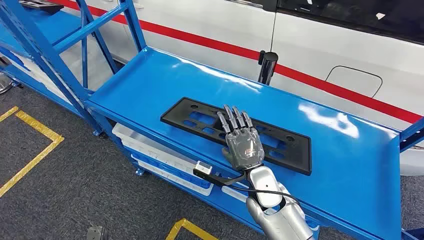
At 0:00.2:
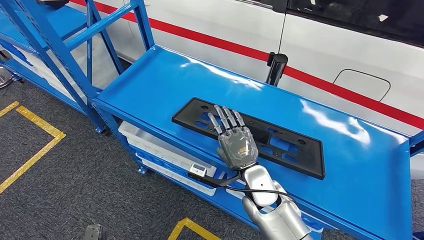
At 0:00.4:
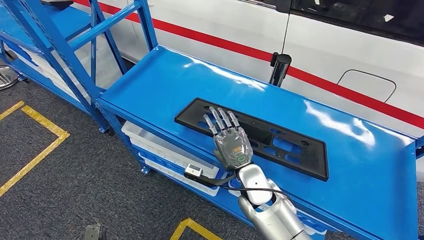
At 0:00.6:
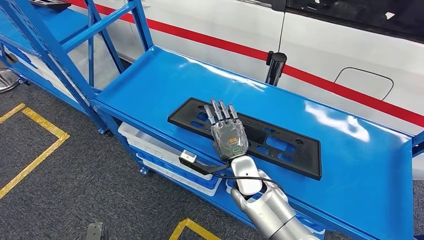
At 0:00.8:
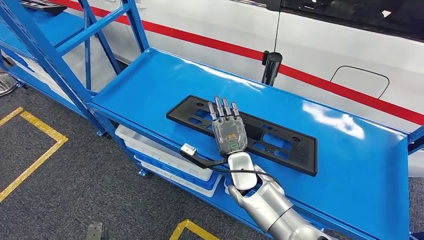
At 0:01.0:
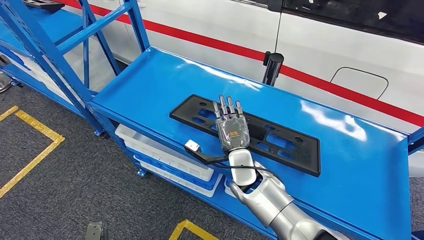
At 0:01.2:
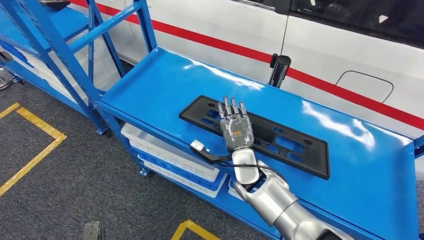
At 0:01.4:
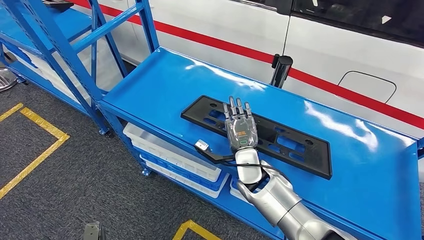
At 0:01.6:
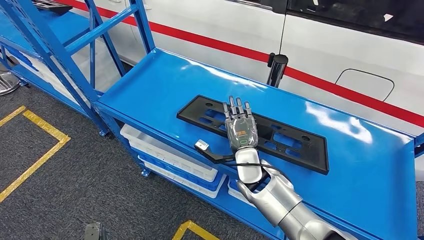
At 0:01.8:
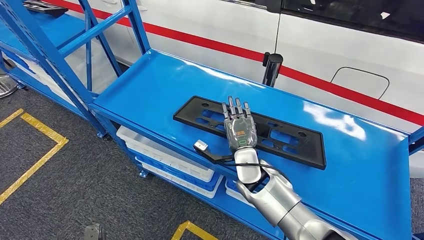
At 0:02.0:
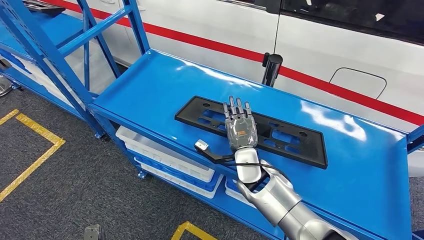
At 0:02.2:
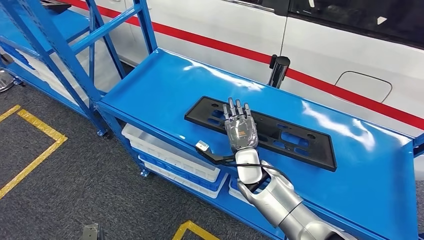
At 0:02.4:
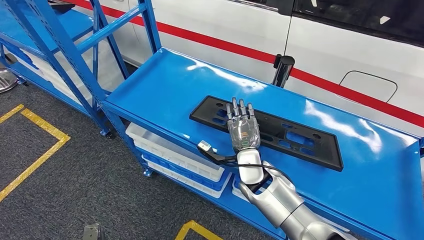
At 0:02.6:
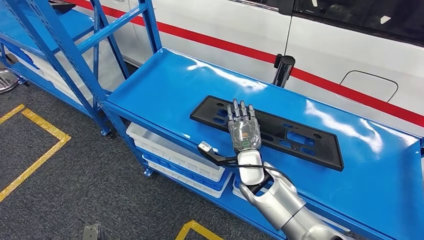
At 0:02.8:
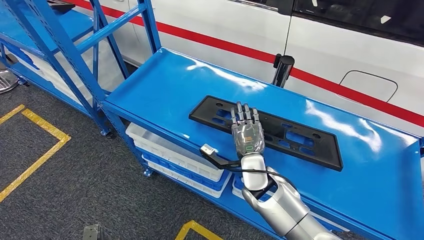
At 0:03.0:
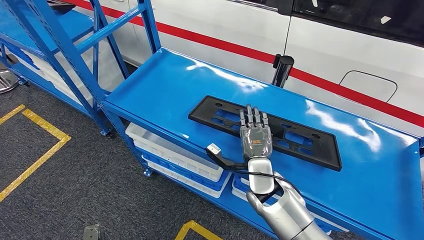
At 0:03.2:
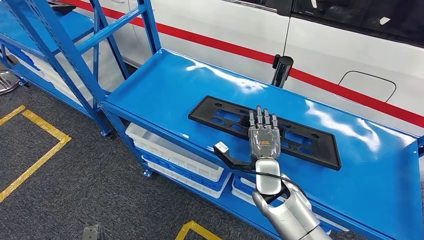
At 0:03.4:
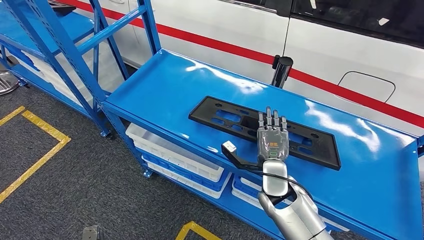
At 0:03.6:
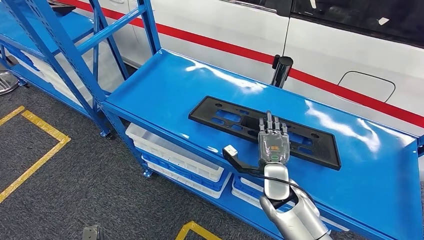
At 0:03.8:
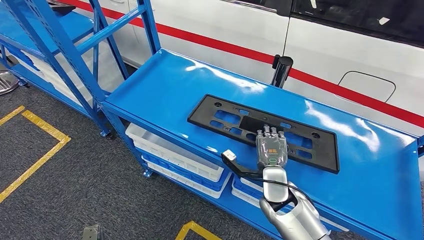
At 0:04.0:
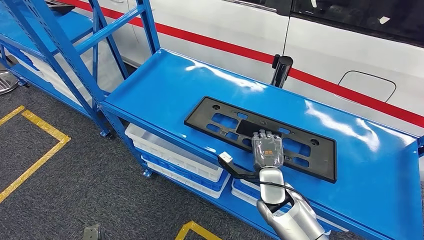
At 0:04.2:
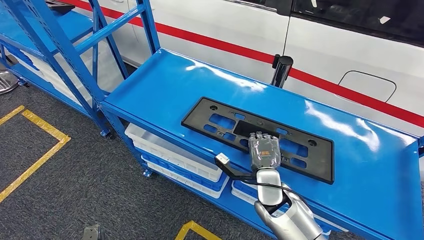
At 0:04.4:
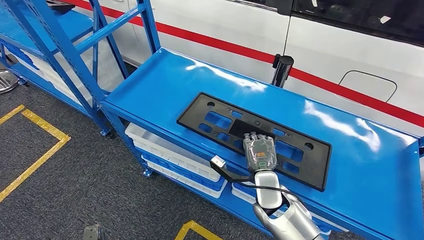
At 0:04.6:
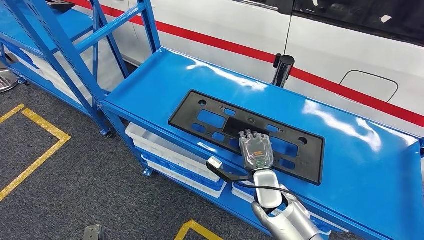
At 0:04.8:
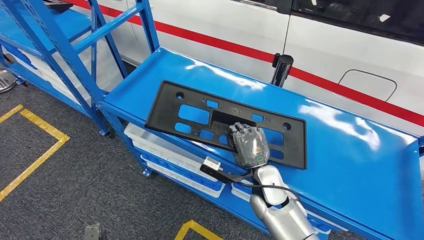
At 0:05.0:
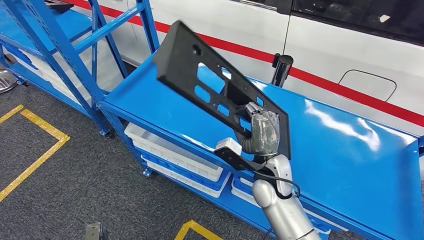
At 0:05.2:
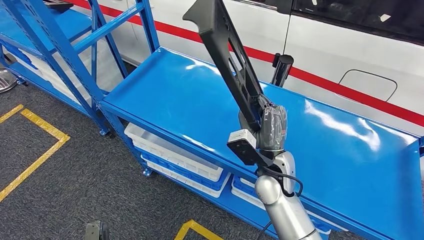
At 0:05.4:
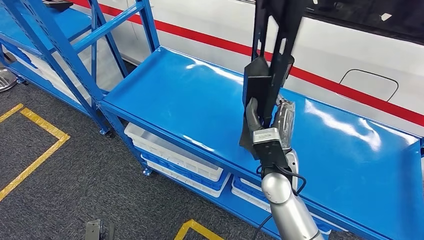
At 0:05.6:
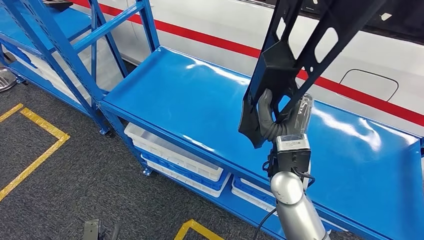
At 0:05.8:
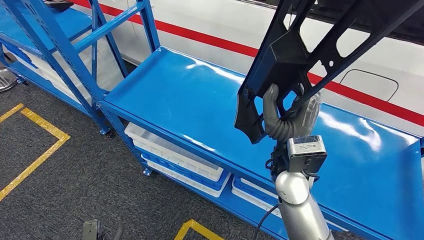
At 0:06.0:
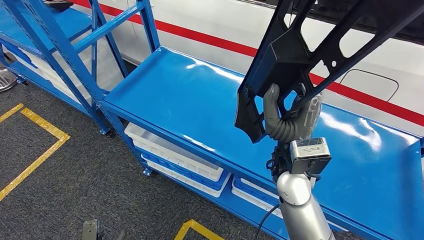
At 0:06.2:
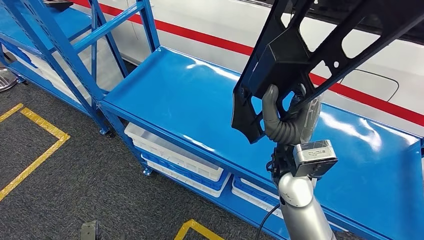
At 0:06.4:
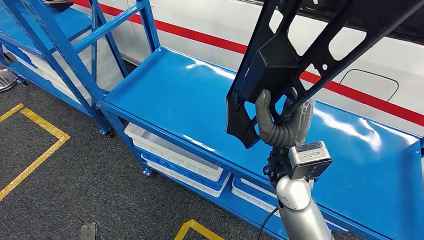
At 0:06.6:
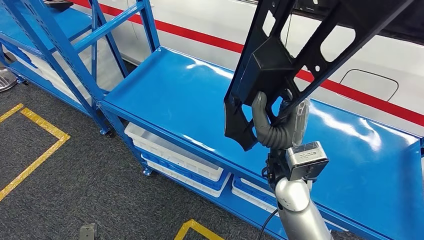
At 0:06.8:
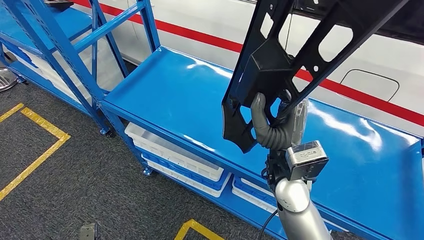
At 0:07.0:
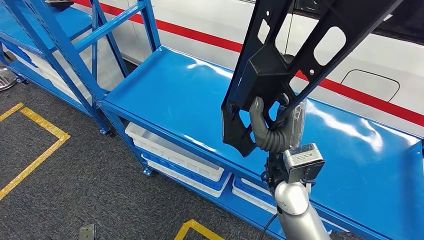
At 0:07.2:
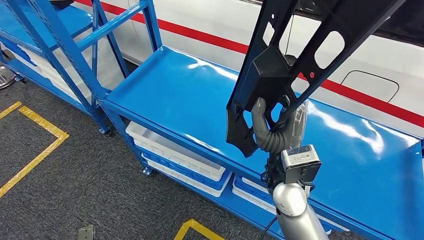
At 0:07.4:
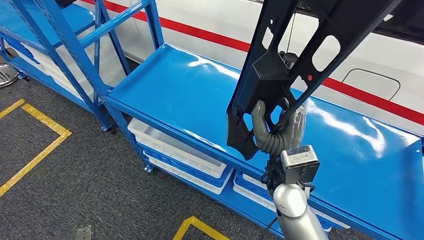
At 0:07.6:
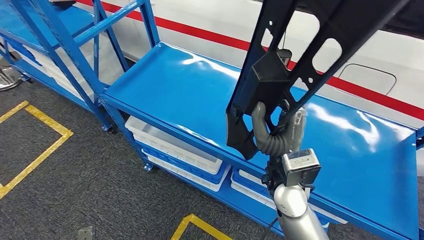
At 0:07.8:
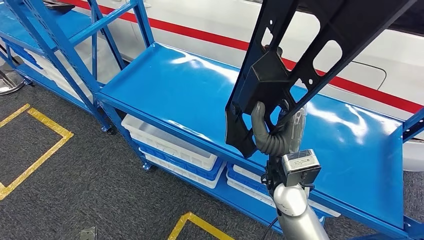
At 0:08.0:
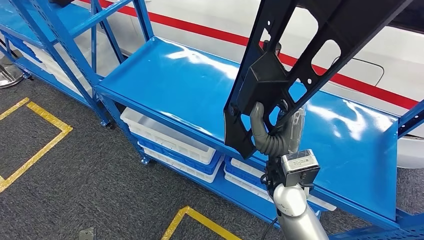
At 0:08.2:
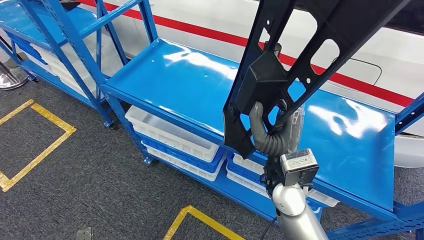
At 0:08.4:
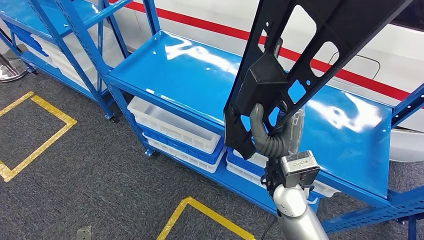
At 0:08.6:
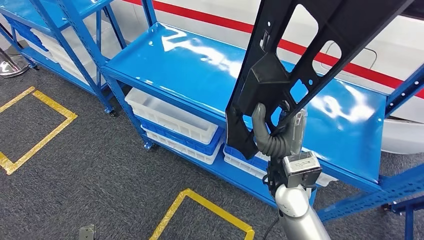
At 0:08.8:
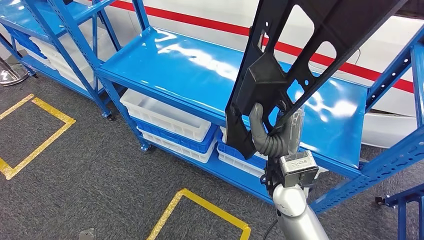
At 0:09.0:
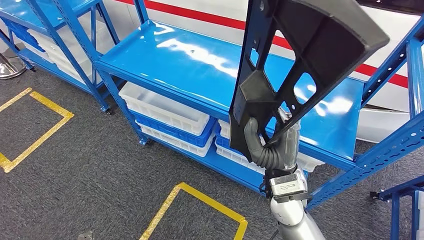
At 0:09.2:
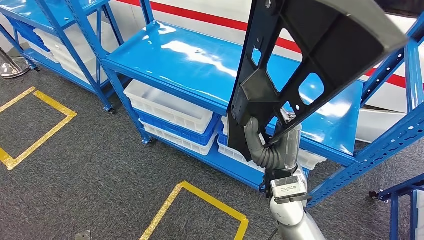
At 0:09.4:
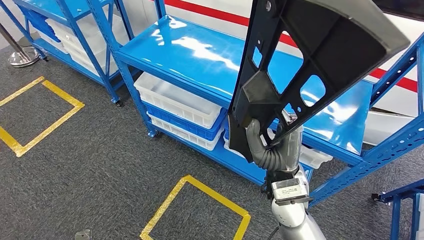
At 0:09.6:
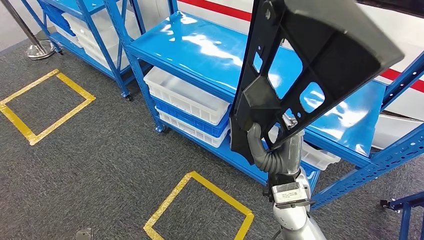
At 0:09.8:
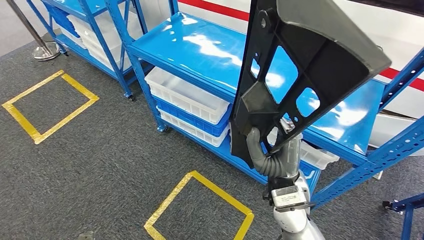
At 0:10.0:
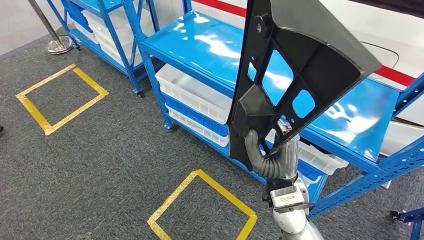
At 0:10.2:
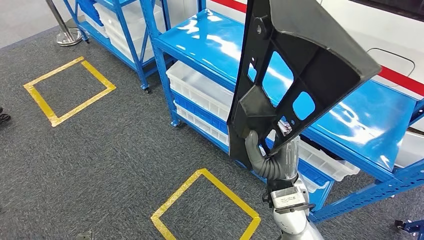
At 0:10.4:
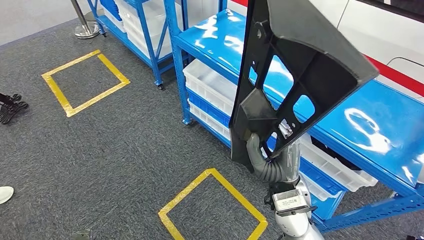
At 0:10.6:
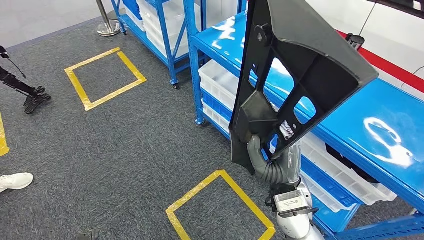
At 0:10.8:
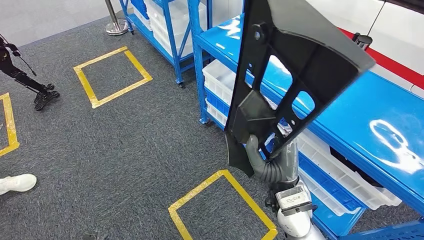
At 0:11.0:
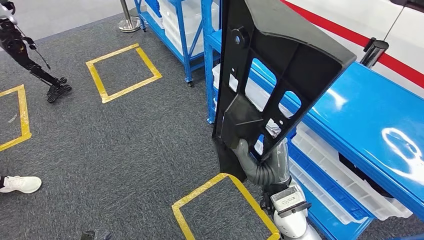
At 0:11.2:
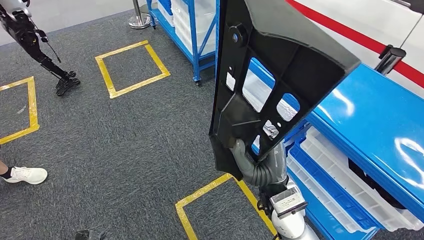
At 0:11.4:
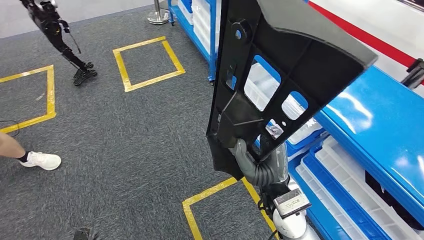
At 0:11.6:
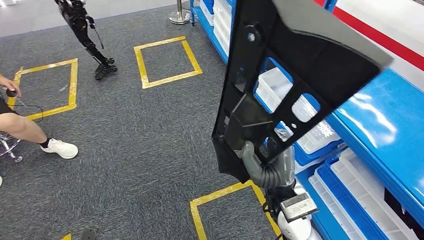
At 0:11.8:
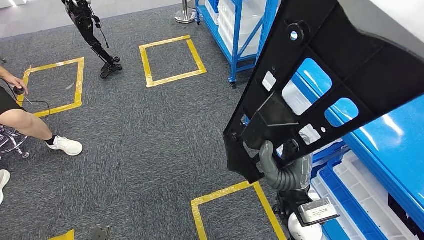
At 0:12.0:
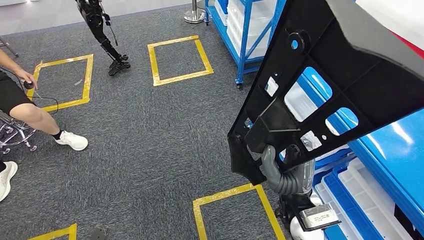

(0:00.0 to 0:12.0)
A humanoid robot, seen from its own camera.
Step, 0:00.0 - 0:07.0: Pick up the large material from the shelf.
0:03.0 - 0:04.4: The hands move only a little.

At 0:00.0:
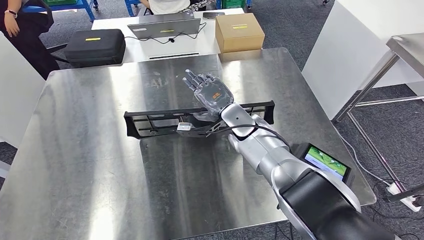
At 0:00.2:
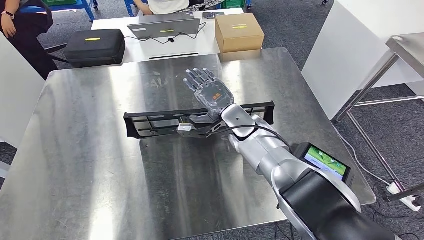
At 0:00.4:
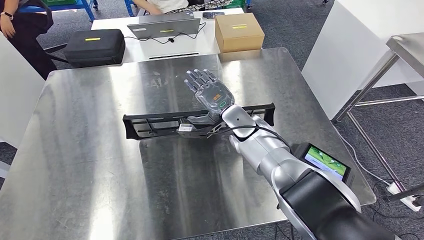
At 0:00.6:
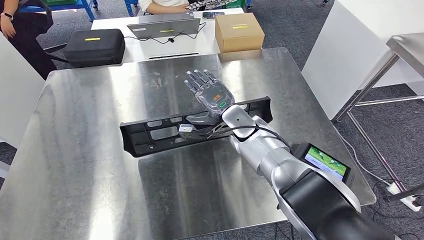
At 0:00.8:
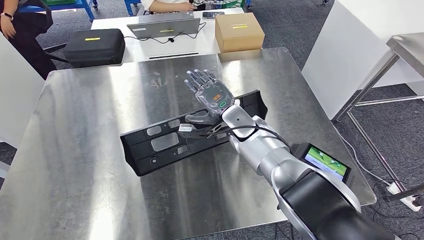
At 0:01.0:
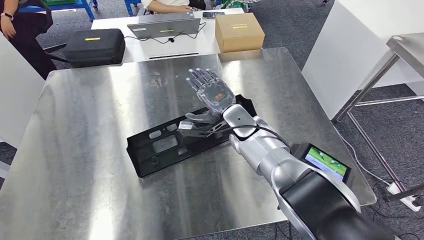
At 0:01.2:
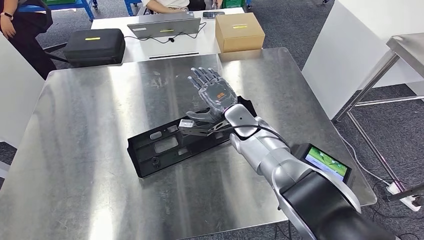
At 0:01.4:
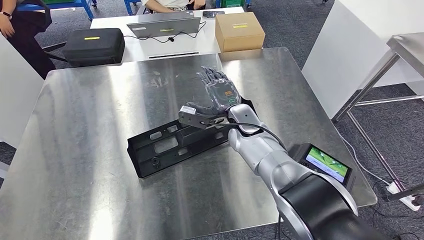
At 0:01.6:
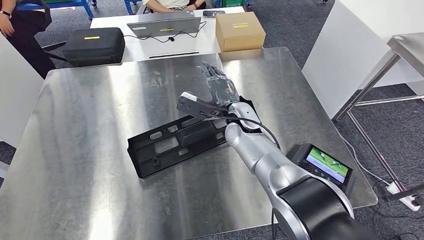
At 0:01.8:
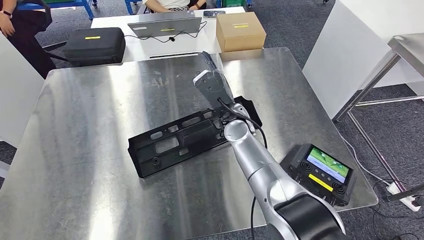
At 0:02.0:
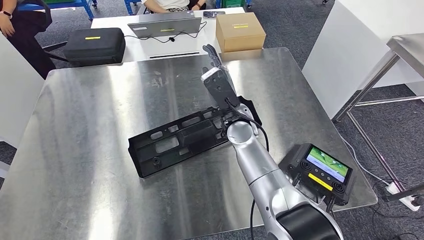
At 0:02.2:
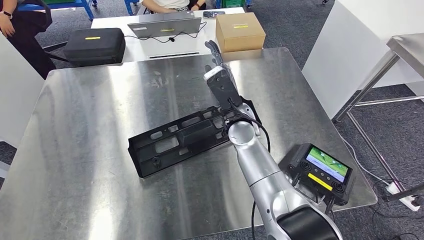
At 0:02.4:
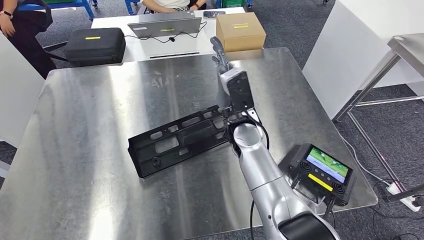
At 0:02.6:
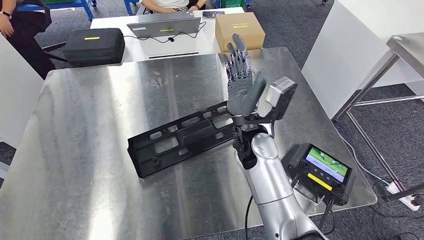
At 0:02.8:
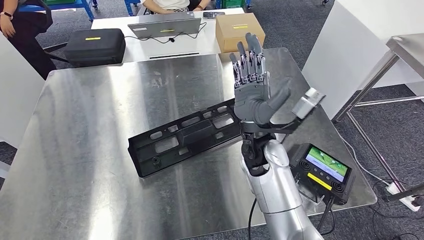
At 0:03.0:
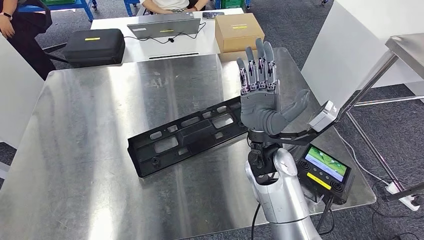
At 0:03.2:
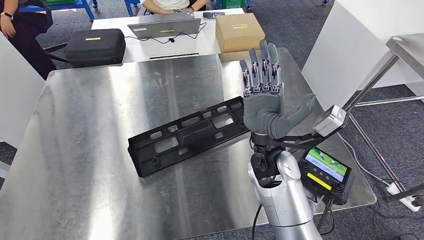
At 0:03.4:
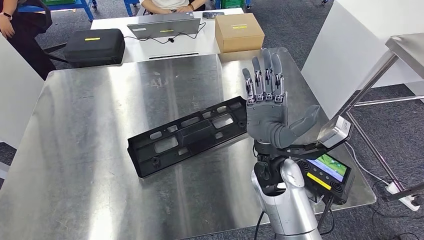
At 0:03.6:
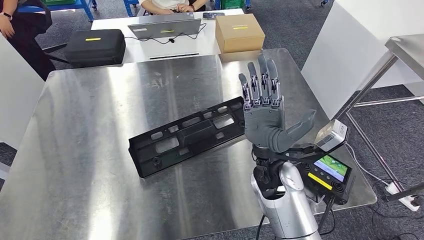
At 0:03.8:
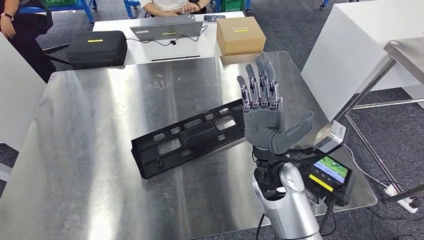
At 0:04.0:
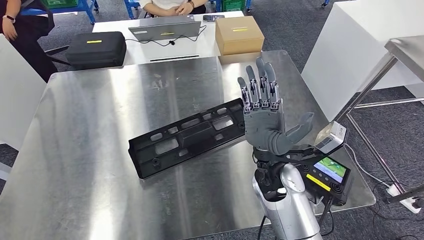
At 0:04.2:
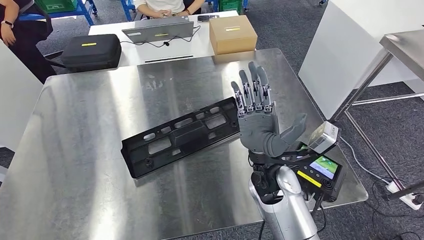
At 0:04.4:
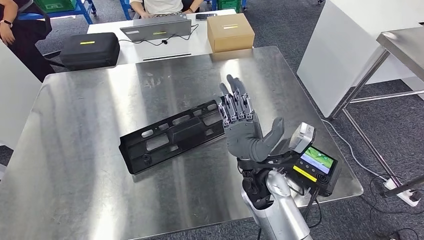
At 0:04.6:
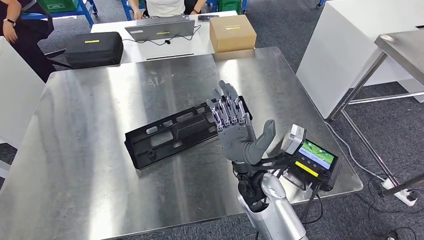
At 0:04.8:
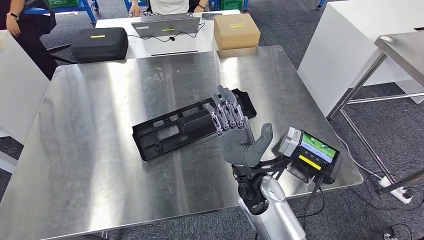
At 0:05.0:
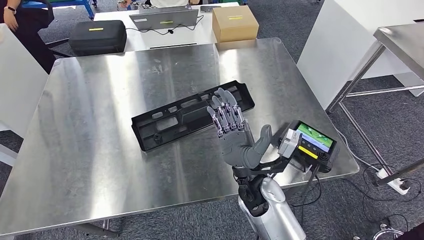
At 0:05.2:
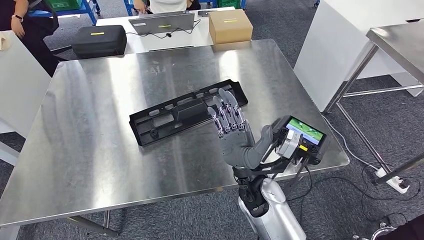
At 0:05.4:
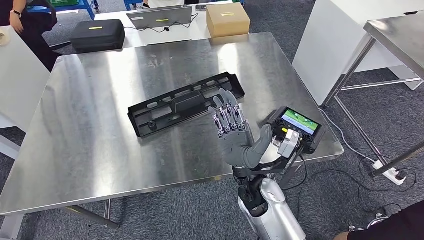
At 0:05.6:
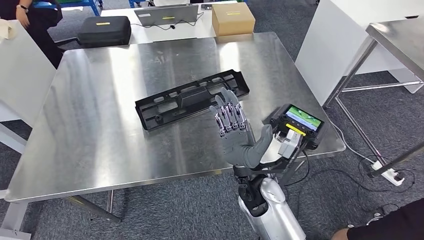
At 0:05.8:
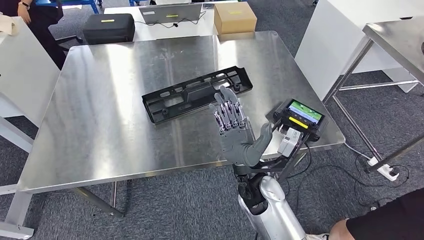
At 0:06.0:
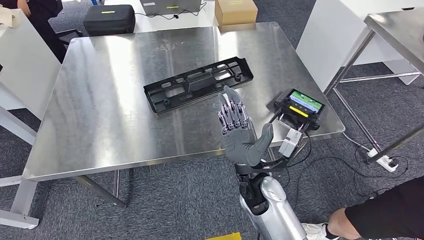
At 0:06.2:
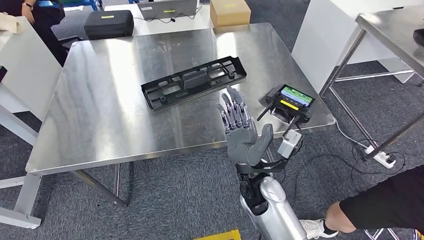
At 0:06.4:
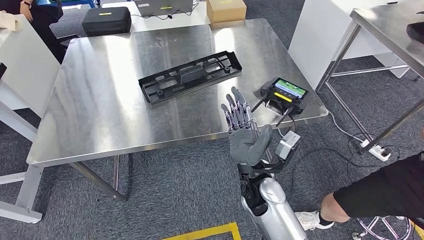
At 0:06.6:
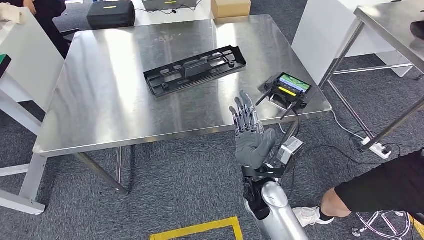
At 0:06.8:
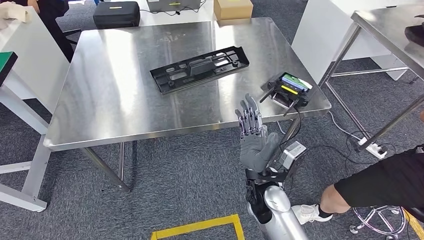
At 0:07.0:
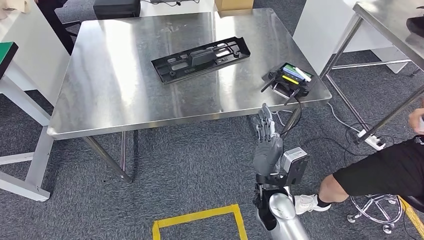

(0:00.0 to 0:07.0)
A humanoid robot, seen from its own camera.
Step, 0:00.0 - 0:03.0: Insert the large material into the corresponding slot on the workbench.
0:01.4 - 0:02.8: The right hand shifts approximately 10 cm backward and upward.
